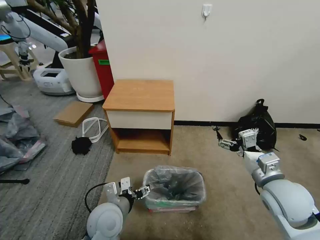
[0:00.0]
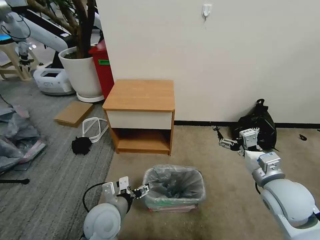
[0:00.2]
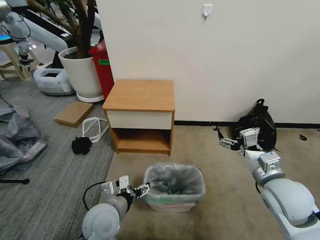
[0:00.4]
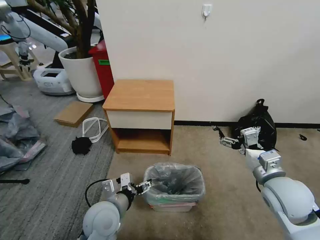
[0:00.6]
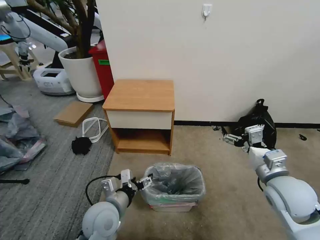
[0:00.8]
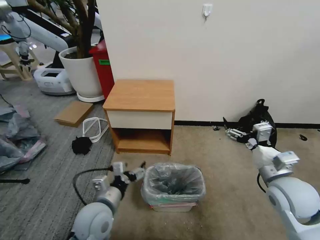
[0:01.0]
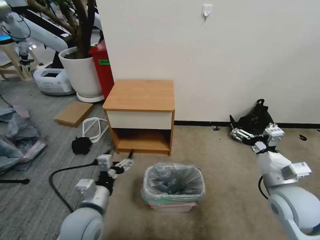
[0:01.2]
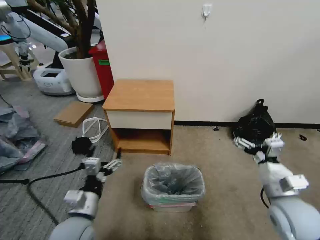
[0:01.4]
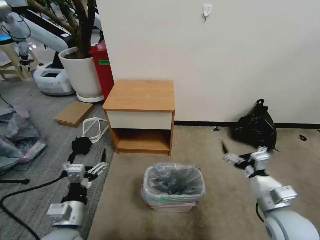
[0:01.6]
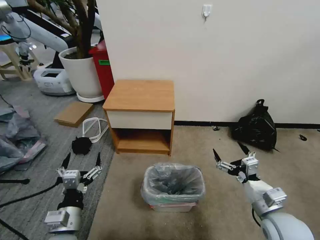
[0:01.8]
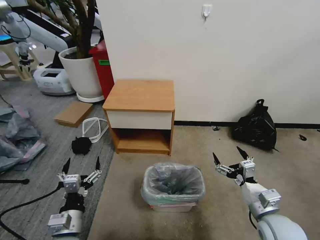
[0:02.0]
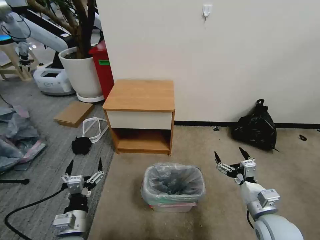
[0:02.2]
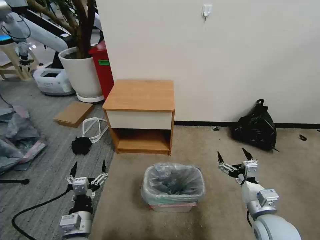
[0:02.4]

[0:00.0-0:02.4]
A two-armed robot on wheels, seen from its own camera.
Task of the whole recording: Pick up the garbage bag from the table and place it over the trash can.
0:00.0 to 0:01.2: The left gripper shifts by about 5 cm.
0:01.2 to 0:02.4: The left gripper travels downward and backward by some 10 cm. The right gripper moves downward, about 10 cm.

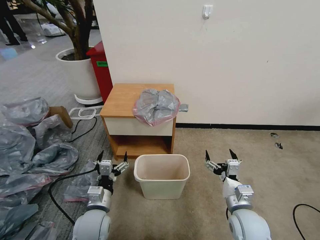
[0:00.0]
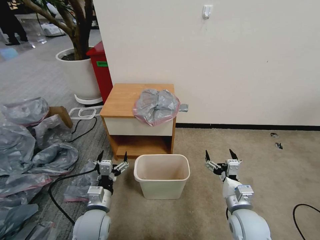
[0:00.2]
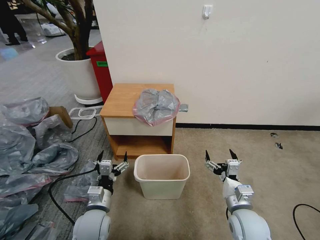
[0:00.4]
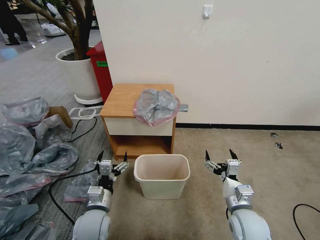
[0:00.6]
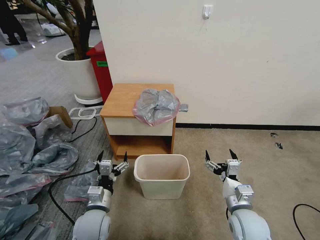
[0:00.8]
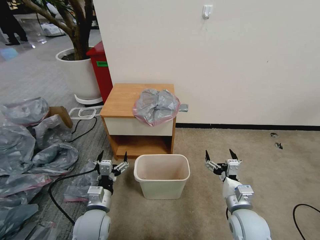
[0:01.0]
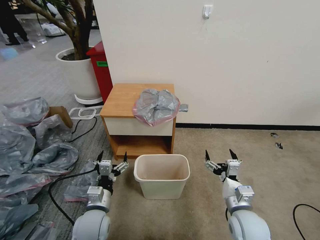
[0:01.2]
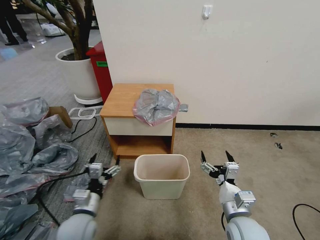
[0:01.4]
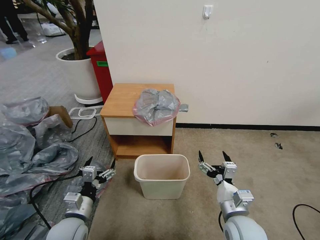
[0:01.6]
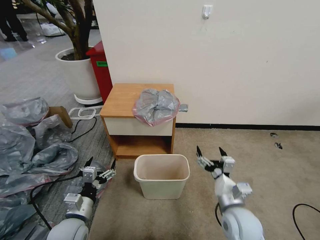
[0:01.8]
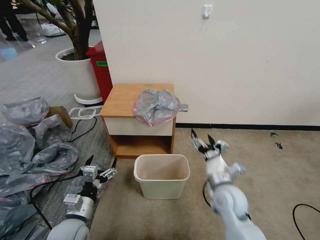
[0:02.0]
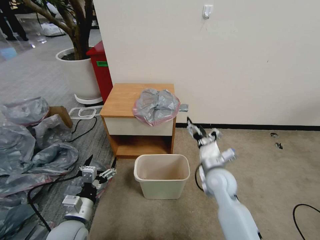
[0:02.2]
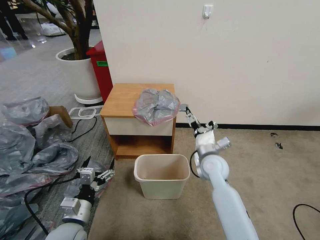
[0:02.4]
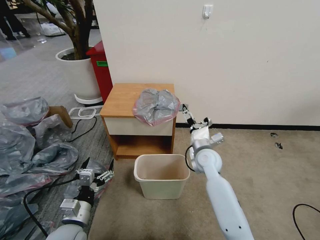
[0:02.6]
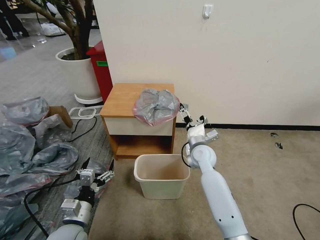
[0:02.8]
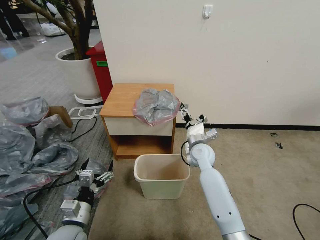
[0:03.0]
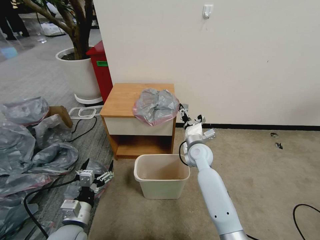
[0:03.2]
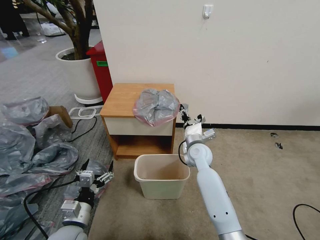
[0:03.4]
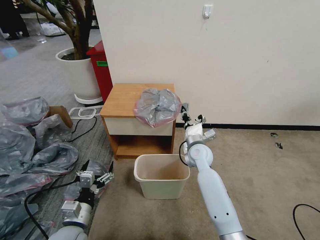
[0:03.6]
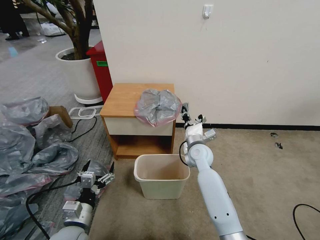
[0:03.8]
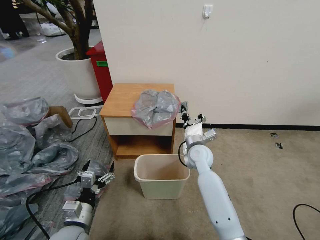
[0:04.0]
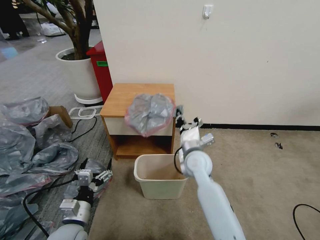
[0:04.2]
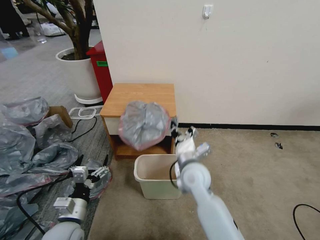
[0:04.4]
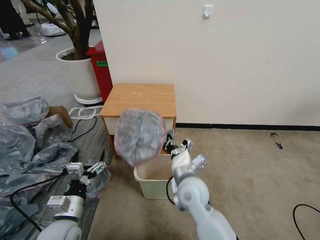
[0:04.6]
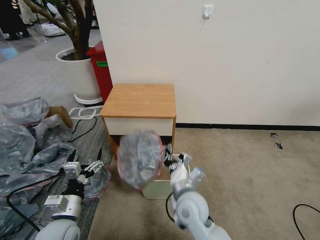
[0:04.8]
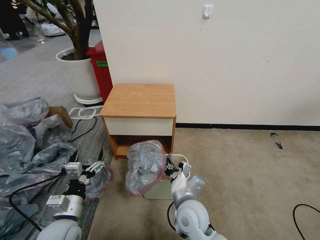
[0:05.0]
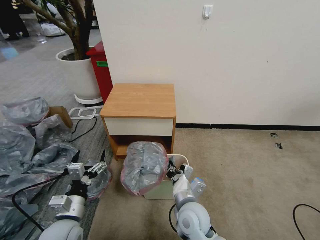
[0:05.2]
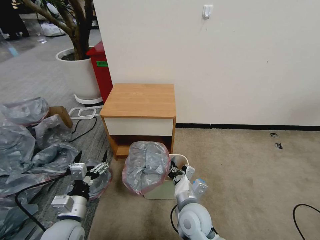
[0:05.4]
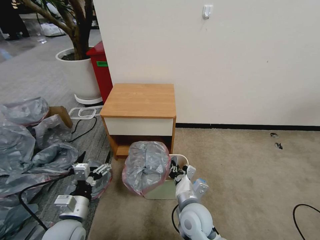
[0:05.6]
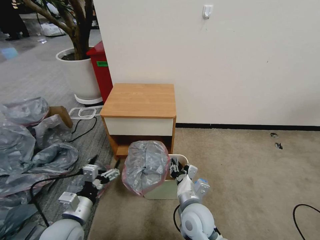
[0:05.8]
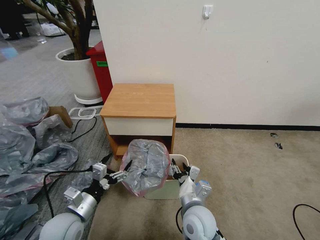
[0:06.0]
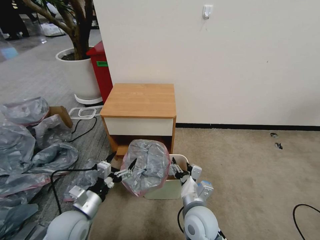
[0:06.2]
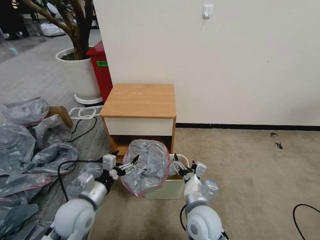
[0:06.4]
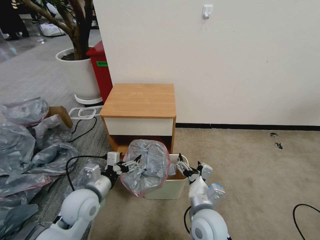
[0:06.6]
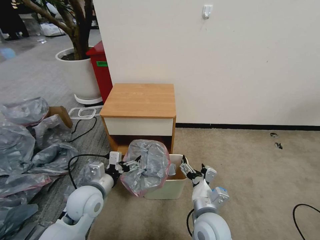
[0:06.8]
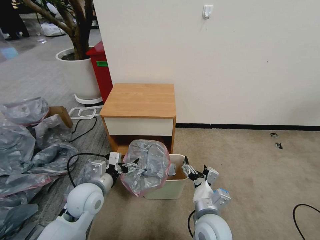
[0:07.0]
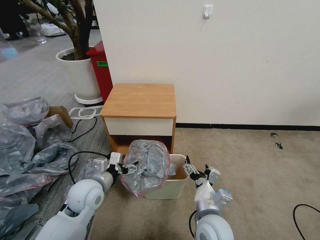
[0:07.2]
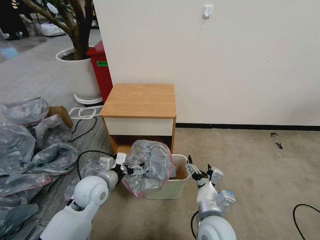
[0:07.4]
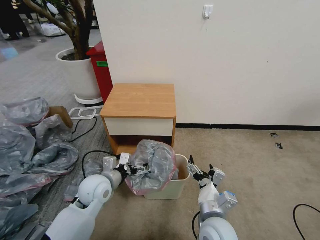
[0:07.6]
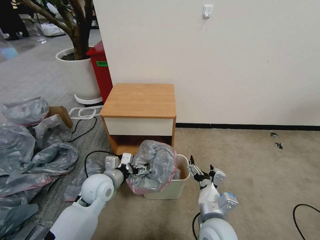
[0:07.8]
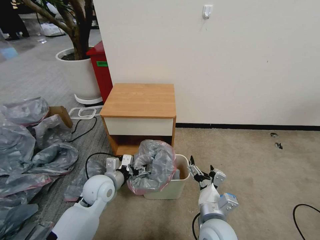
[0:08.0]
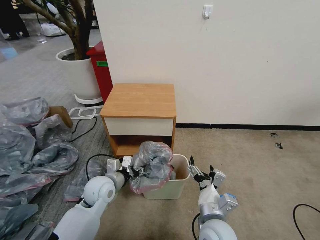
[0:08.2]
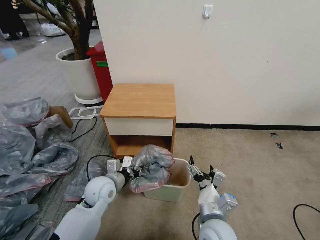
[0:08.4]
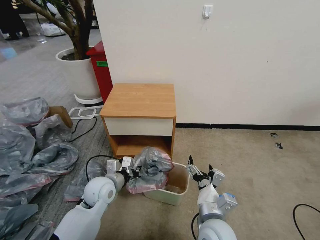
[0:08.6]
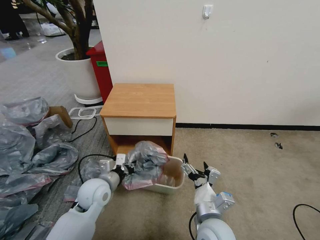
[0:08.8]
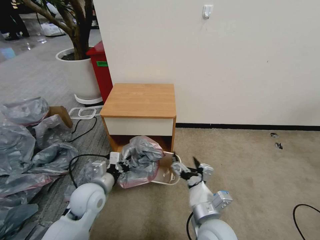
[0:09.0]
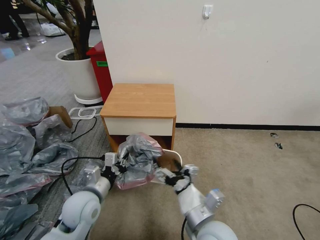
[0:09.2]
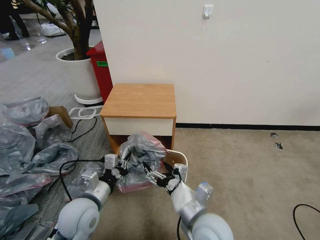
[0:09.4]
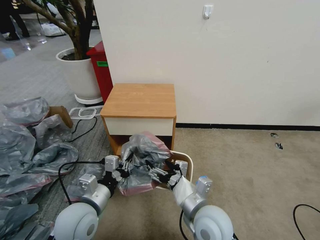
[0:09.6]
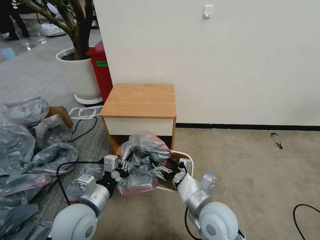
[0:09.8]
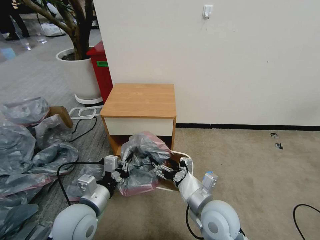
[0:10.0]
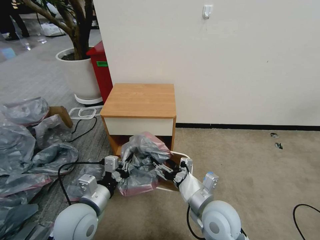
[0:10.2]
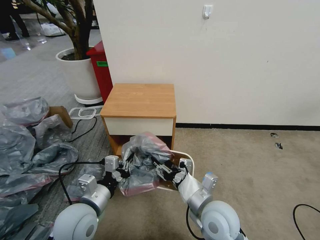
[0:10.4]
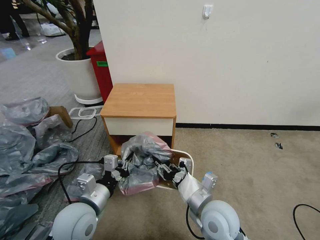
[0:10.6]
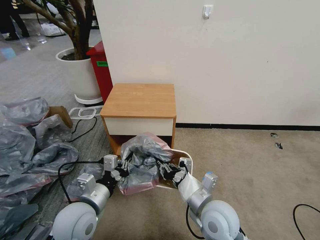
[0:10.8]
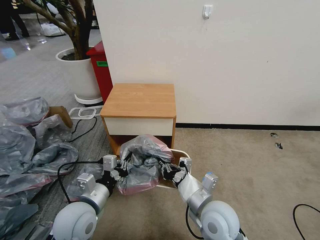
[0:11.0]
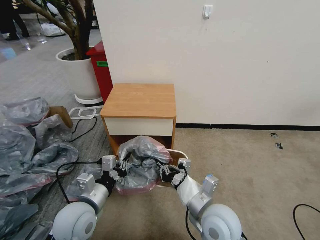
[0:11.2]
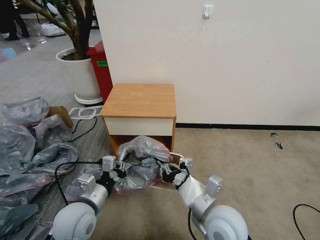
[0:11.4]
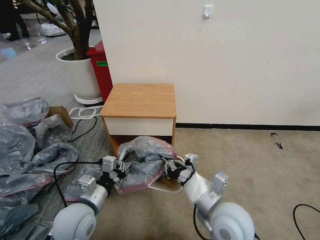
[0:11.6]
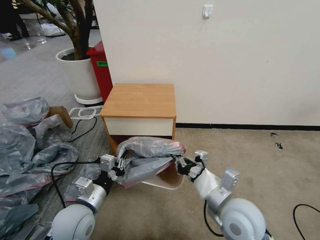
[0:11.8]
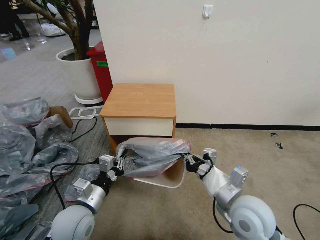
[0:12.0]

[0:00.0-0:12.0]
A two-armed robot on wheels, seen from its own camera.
Task of the whole recording: Pick up the garbage bag from the table and place it over the trash can.
0:01.6 to 0:03.0: The right gripper heads forward, covering some 25 cm.
0:03.0 to 0:04.4: The right gripper is displaced backward and to the left by roughly 15 cm, and closes up.
0:04.4 to 0:06.0: The right gripper goes some 10 cm backward and downward, and opens its fingers.
0:06.0 to 0:07.6: The right gripper moves approximately 5 cm, and opens. The left gripper is displaced forward and to the right by approximately 15 cm.
0:07.6 to 0:09.0: The left gripper closes its fingers.
0:09.0 to 0:10.4: The left gripper is displaced backward by some 5 cm. Meanwhile the right gripper closes.
0:10.4 to 0:12.0: The right gripper heads to the right, covering roughly 5 cm, and closes its fingers.

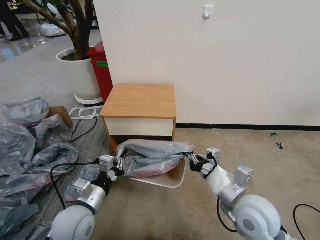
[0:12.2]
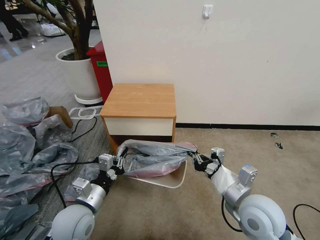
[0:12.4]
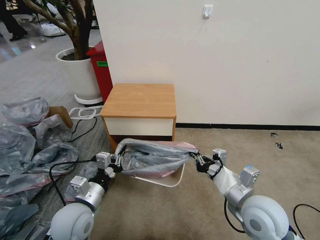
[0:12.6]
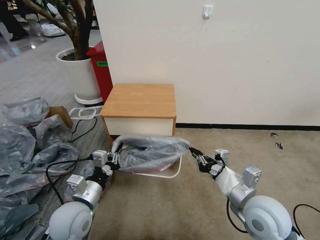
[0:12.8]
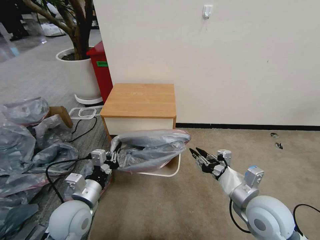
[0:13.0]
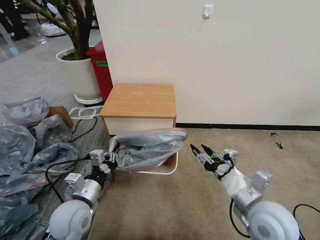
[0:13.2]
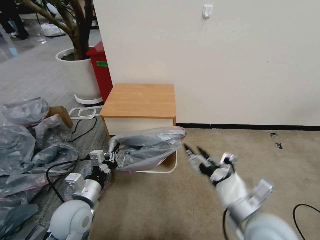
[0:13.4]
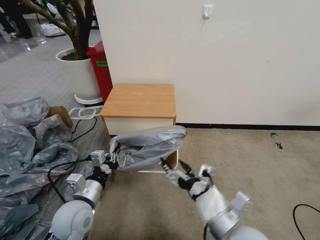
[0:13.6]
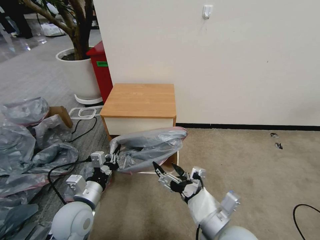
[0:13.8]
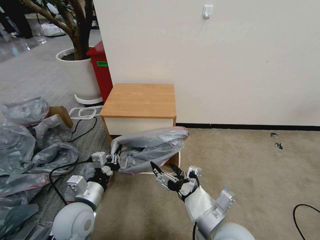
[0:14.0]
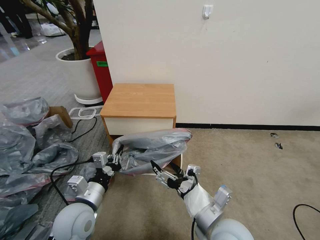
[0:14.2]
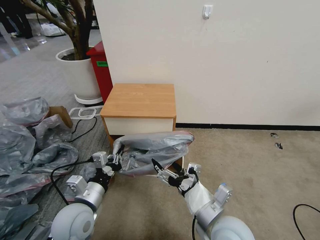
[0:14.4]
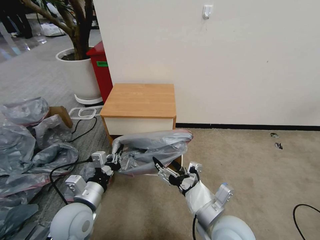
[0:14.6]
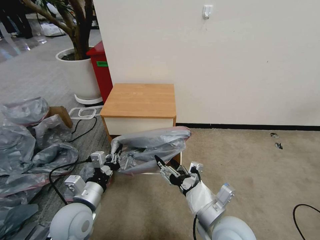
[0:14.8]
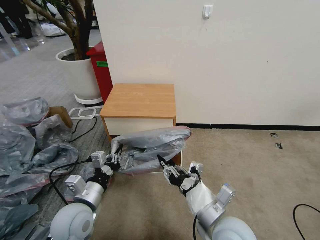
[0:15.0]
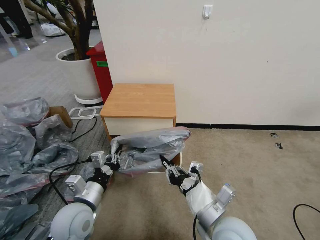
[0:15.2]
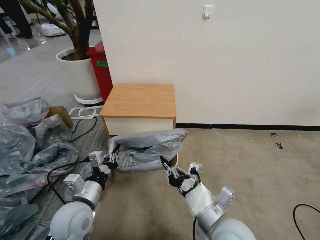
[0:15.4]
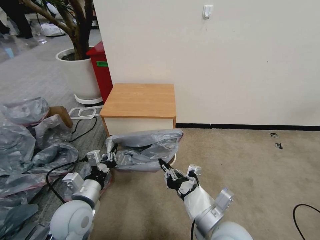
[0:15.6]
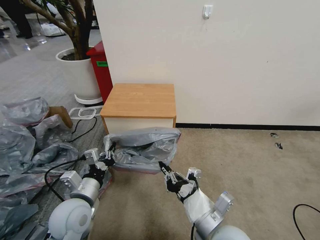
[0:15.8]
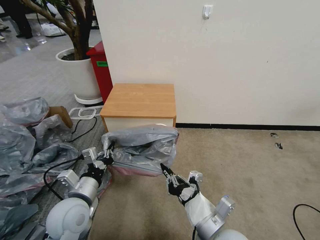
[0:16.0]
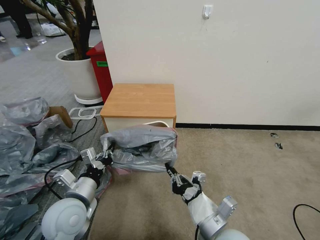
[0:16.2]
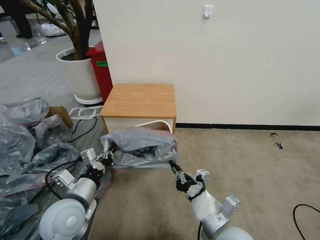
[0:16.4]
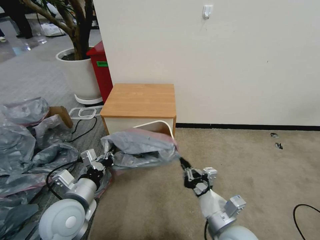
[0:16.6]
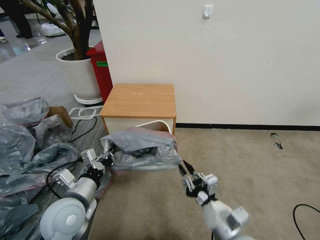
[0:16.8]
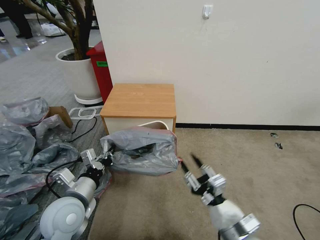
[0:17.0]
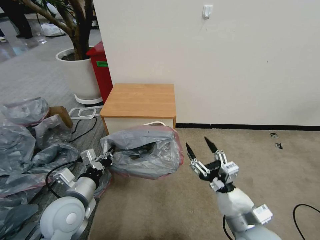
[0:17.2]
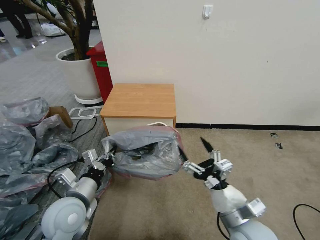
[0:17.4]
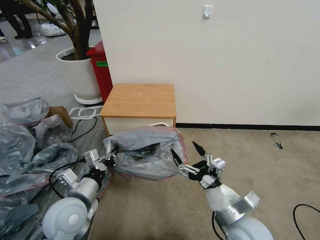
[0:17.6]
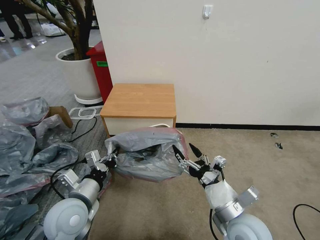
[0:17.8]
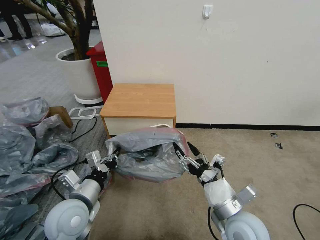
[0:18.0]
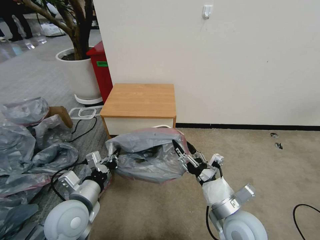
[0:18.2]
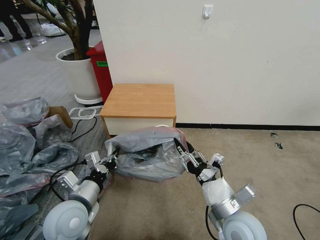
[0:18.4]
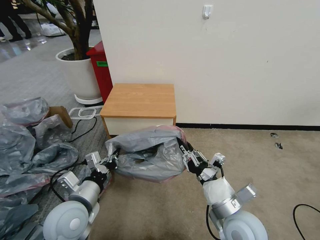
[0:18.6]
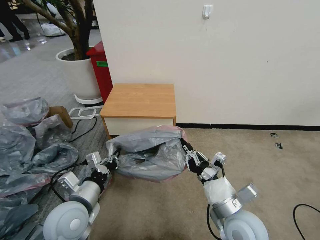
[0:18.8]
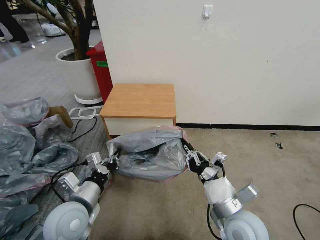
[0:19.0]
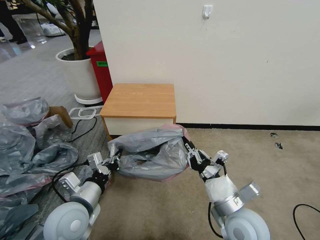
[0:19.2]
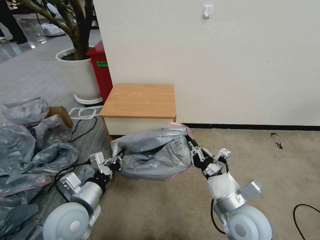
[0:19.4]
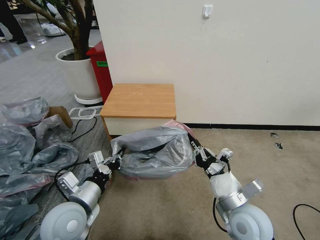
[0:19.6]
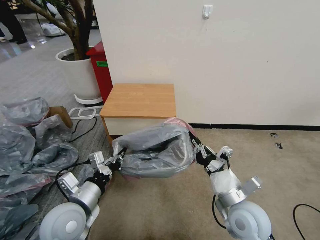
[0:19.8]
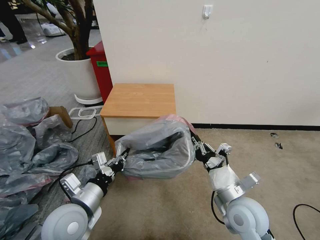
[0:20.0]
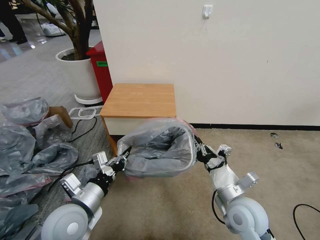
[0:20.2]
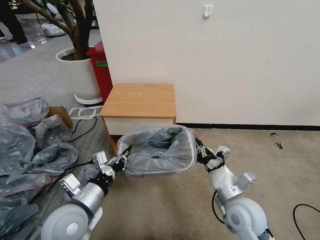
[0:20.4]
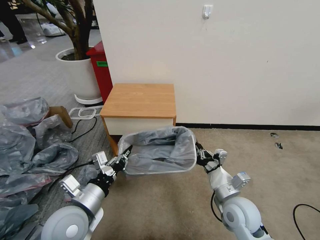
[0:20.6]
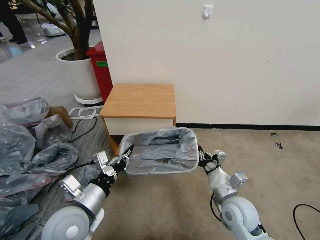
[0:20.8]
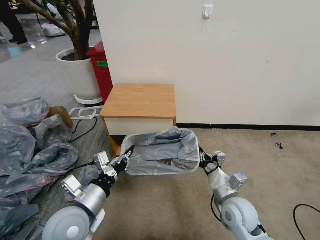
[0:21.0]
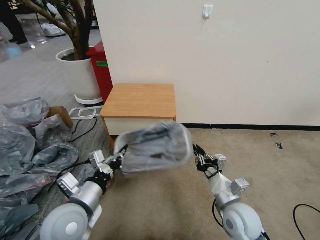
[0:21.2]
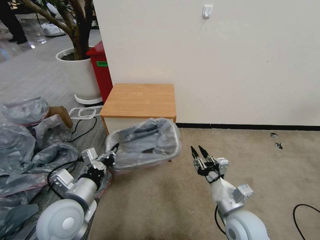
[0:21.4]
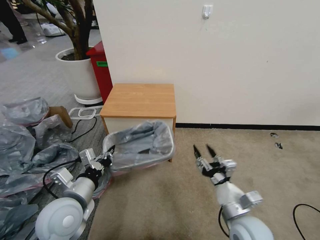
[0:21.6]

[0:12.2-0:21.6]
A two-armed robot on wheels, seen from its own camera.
Task of the whole recording: Pick up the garbage bag from the table and place it over the trash can.
0:12.2 to 0:13.8: The right gripper shifts about 10 cm to the left and backward, and opens its fingers.
0:13.8 to 0:15.4: The right gripper closes its fingers.
0:15.4 to 0:17.0: The right gripper ends up some 5 cm from where it was, and opens up.
0:17.0 to 0:18.4: The right gripper moves forward, about 5 cm, and opens, then closes again.
0:18.4 to 0:20.0: The right gripper closes.
0:20.0 to 0:21.6: The right gripper changes place by some 5 cm, and opens its fingers.
